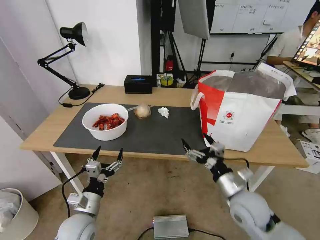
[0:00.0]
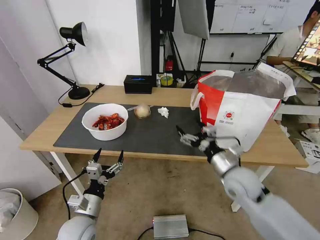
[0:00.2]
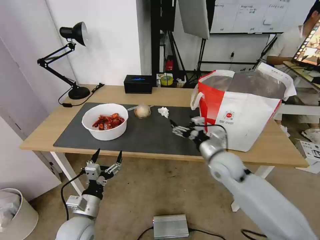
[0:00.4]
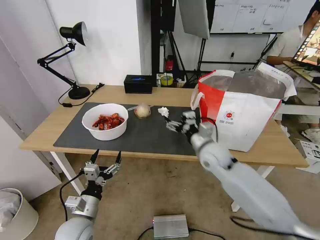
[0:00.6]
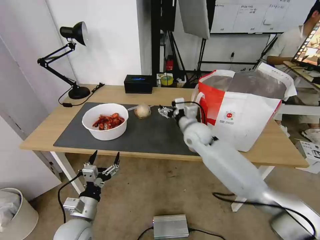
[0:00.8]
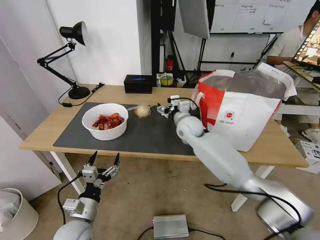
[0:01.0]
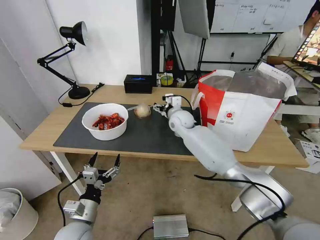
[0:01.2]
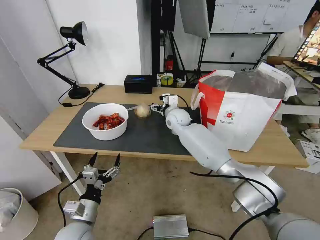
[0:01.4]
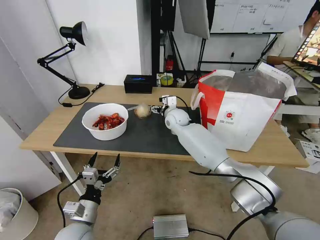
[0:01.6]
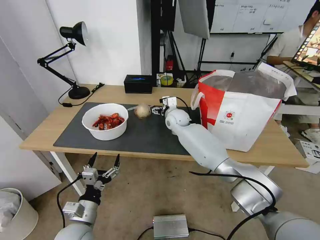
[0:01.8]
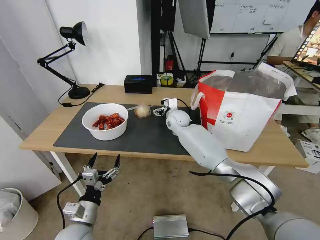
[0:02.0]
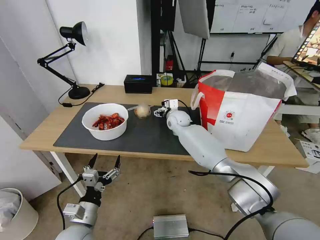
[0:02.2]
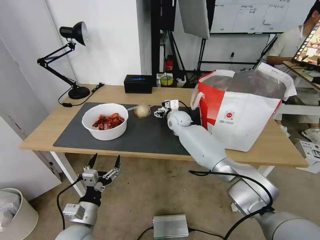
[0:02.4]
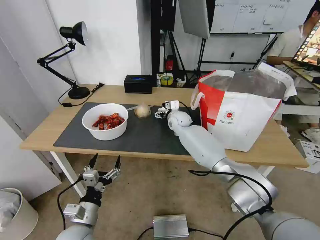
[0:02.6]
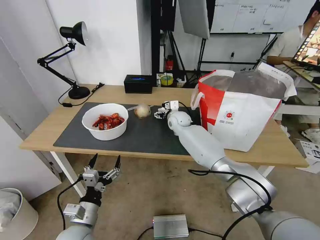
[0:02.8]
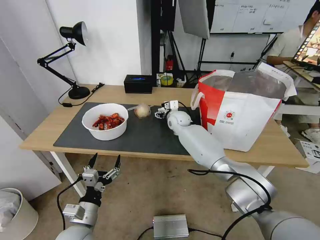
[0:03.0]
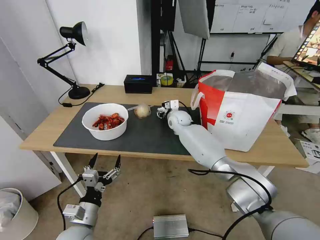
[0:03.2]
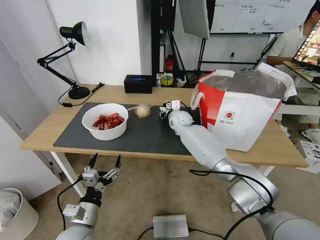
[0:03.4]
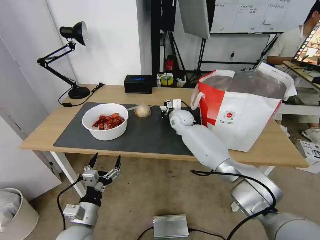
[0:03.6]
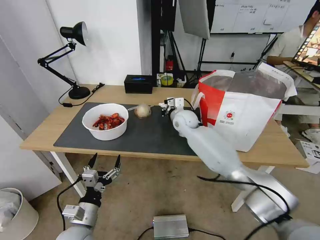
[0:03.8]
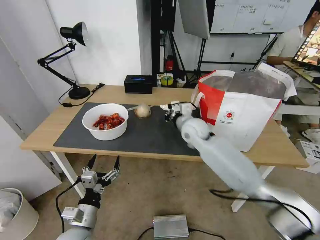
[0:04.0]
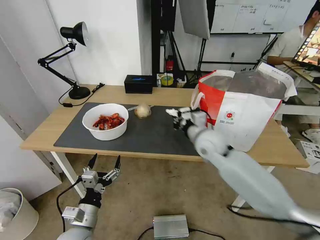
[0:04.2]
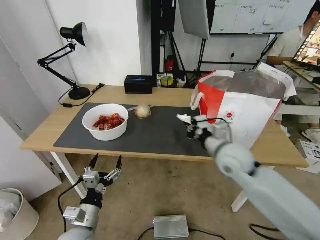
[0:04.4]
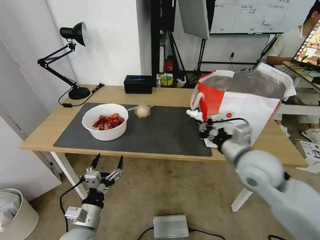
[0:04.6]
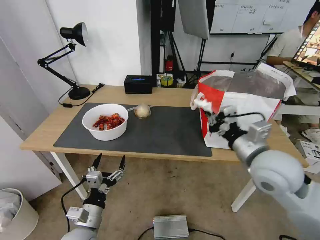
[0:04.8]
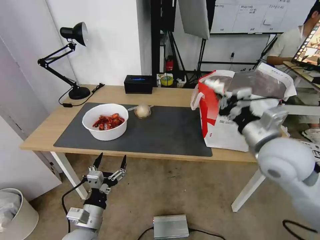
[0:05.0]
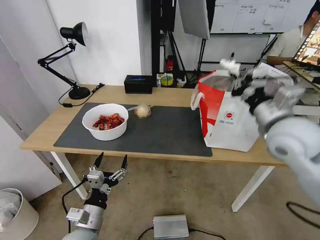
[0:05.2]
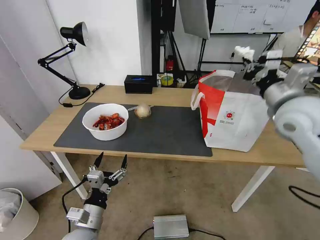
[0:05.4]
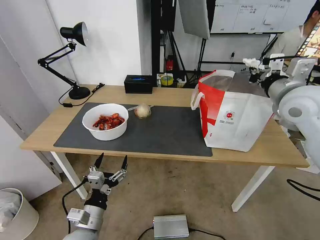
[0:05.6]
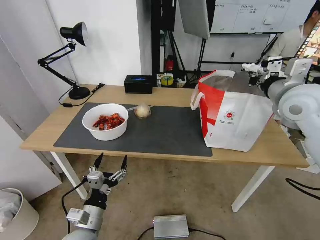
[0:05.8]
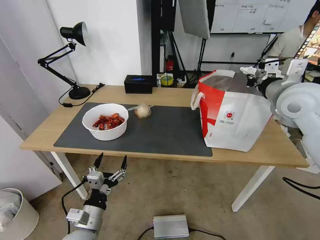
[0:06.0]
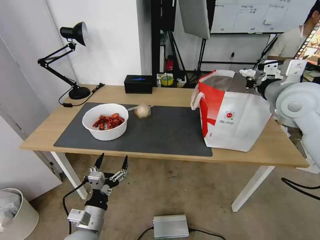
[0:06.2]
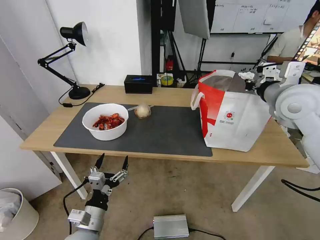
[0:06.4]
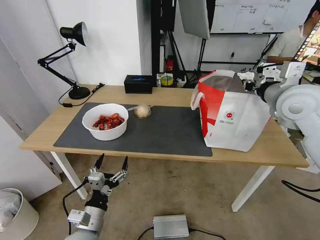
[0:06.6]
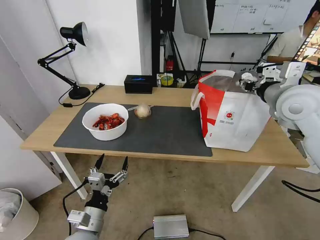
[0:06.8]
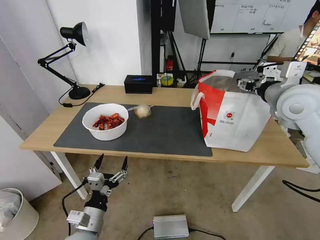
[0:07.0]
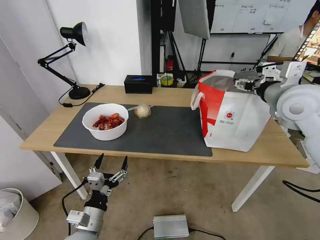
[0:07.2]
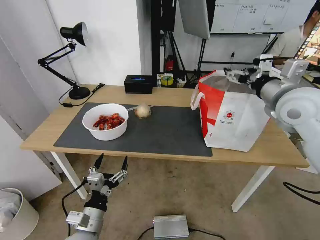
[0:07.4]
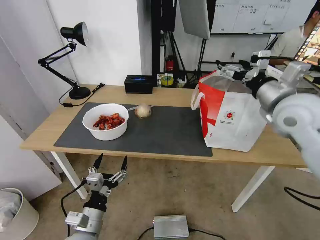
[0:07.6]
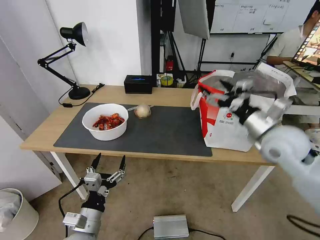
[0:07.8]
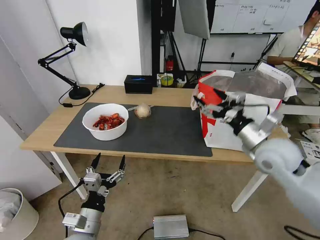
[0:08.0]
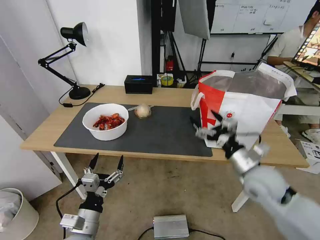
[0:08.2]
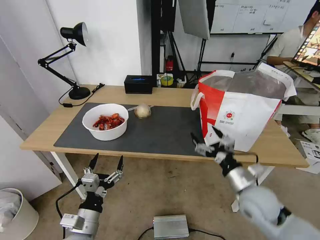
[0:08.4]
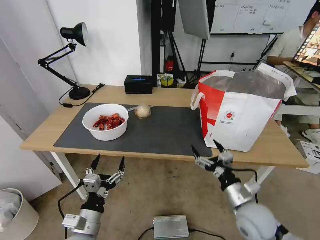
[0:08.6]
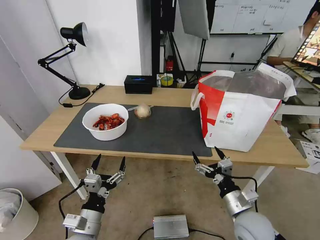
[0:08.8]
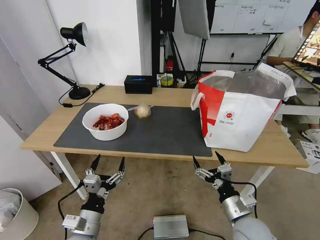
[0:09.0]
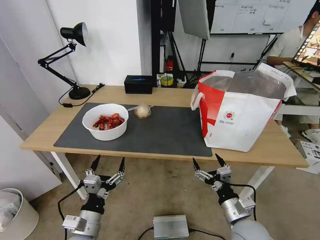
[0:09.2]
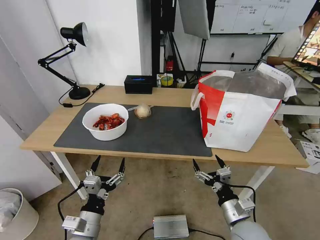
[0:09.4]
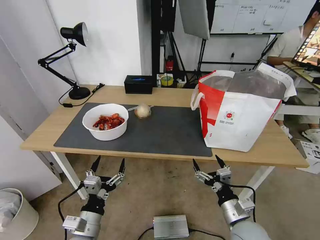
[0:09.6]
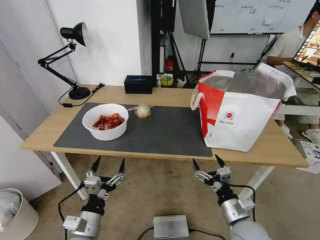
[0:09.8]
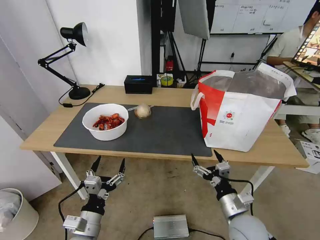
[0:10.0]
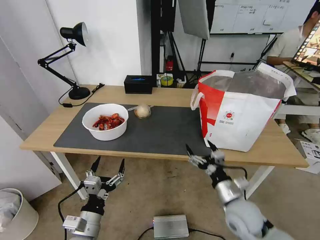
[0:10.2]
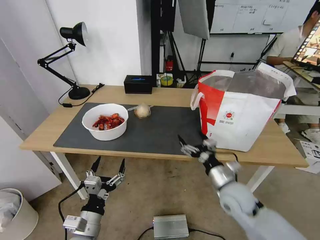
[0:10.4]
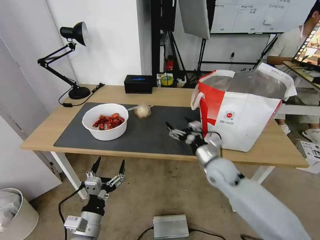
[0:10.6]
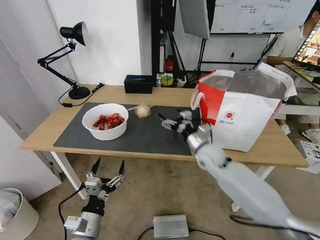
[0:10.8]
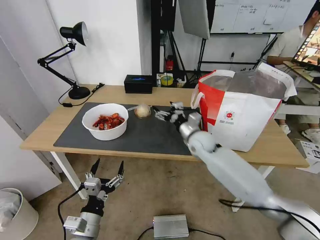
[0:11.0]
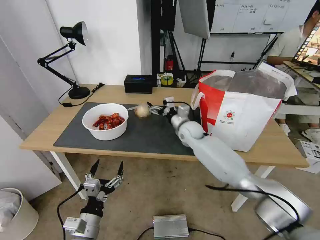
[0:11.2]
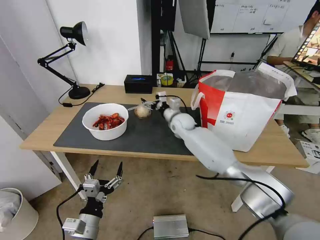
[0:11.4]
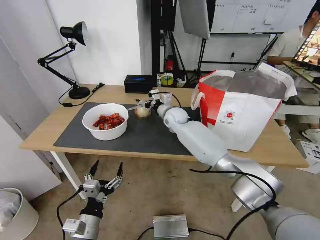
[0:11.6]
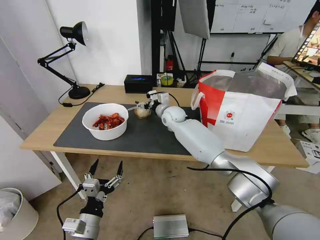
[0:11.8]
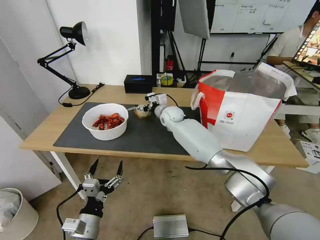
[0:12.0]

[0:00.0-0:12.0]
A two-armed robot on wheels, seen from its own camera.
Task of the whole recording: Pick up the trash from the table and place it into the takeout bag.
0:00.0 to 0:01.6: The right gripper travels forward and to the left by approximately 40 cm.
0:01.6 to 0:03.0: The grippers stay close to where they were, moving slightly.
0:03.0 to 0:04.4: The right gripper shifts about 30 cm backward and to the right, and closes its fingers.
0:04.4 to 0:06.0: The right gripper shifts approximately 20 cm upward, to the right and forward.
0:06.0 to 0:07.6: The right gripper opens.
0:07.6 to 0:09.0: The right gripper travels downward and backward by about 35 cm.
0:09.0 to 0:10.4: The right gripper shifts some 10 cm forward.
0:10.4 to 0:12.0: The right gripper travels forward and to the left by approximately 35 cm.

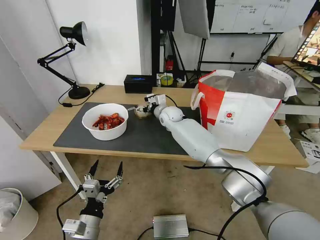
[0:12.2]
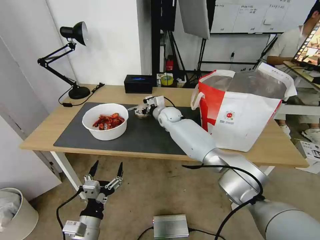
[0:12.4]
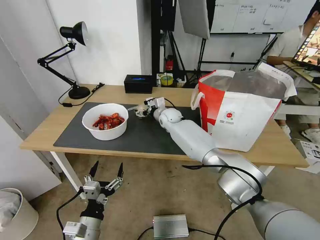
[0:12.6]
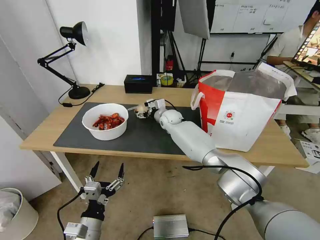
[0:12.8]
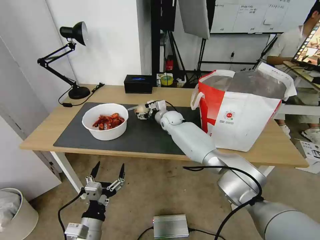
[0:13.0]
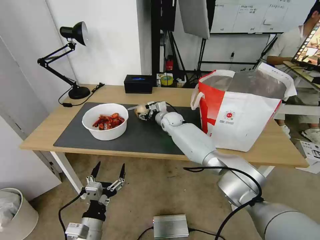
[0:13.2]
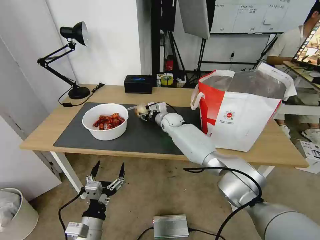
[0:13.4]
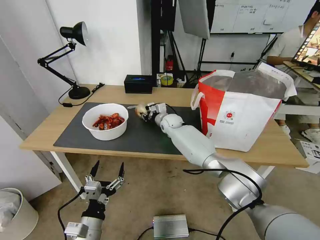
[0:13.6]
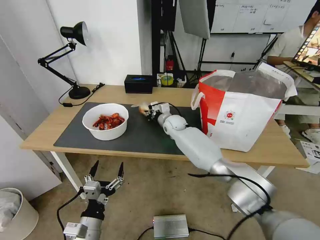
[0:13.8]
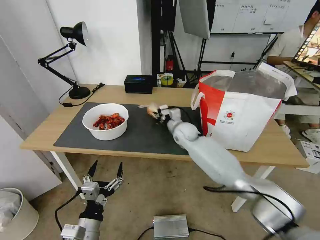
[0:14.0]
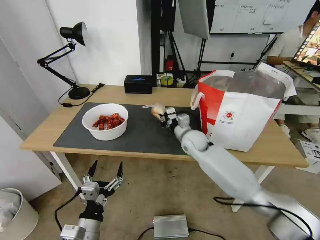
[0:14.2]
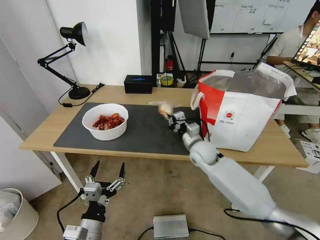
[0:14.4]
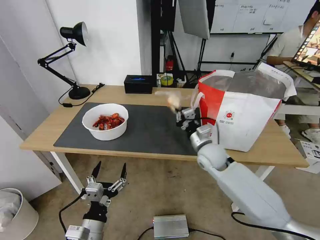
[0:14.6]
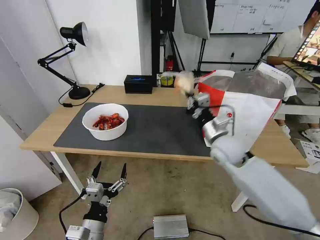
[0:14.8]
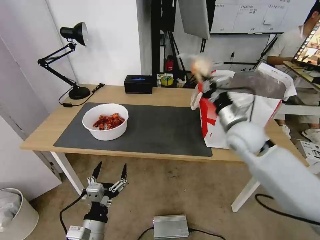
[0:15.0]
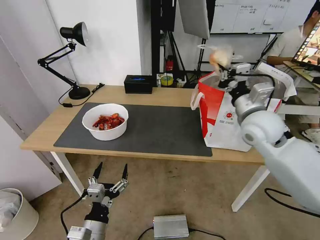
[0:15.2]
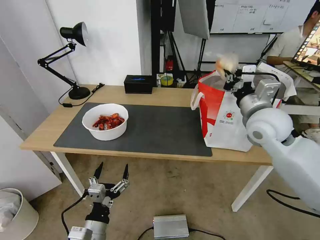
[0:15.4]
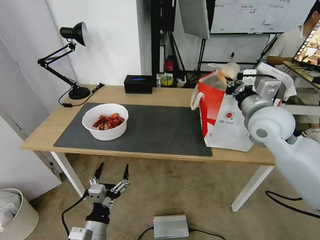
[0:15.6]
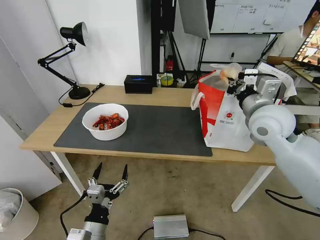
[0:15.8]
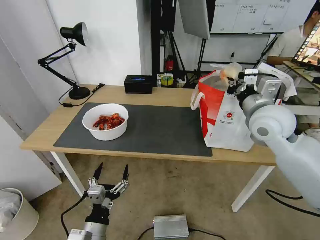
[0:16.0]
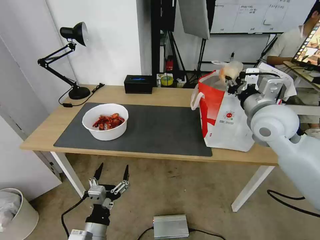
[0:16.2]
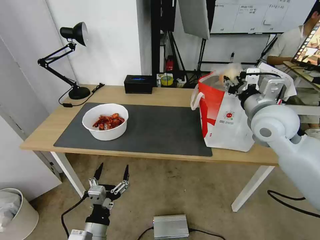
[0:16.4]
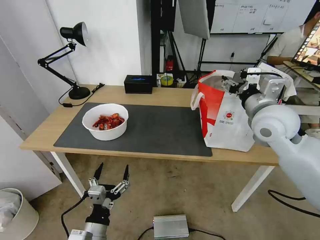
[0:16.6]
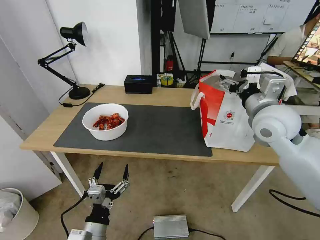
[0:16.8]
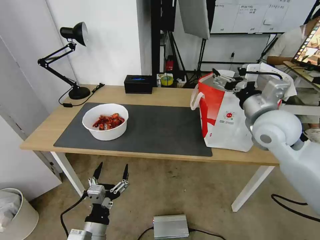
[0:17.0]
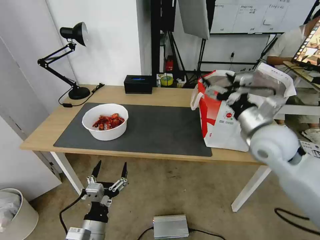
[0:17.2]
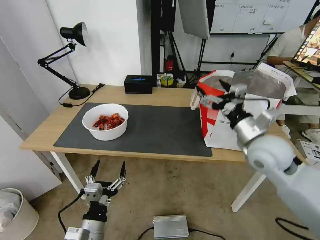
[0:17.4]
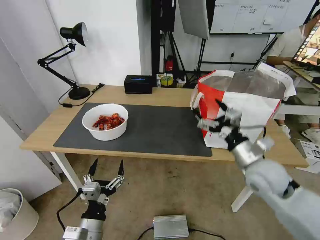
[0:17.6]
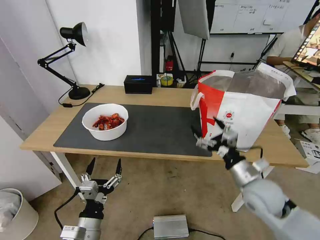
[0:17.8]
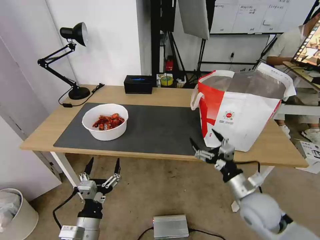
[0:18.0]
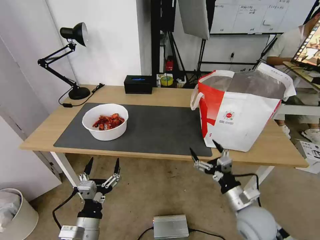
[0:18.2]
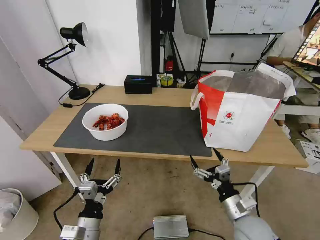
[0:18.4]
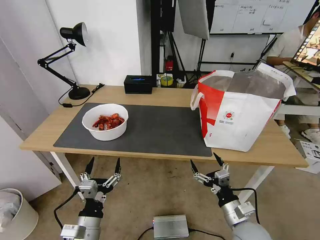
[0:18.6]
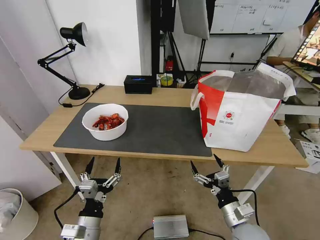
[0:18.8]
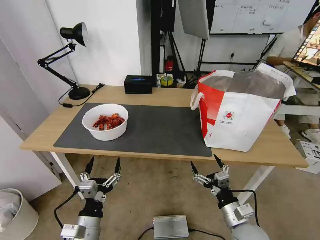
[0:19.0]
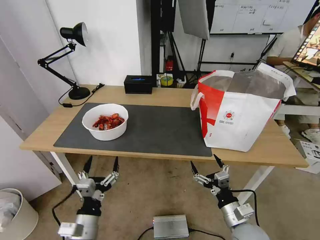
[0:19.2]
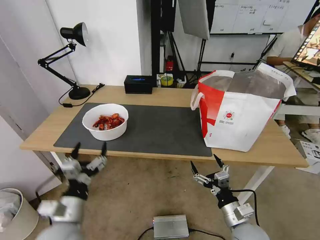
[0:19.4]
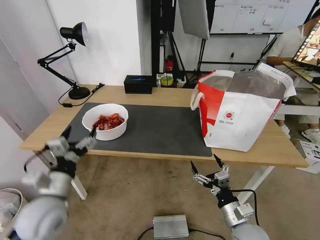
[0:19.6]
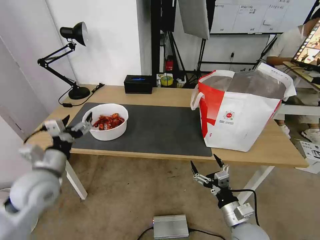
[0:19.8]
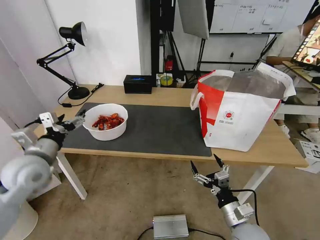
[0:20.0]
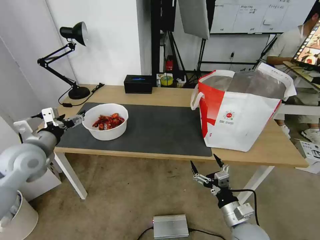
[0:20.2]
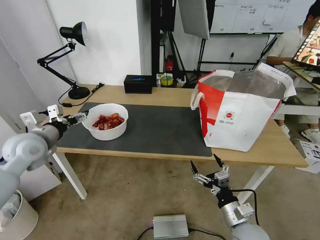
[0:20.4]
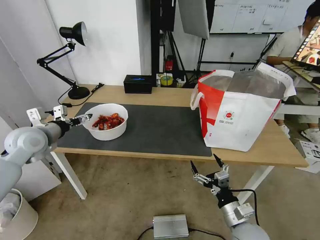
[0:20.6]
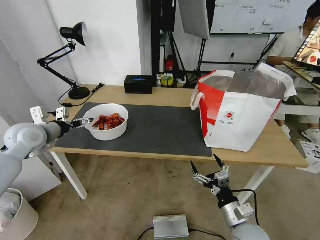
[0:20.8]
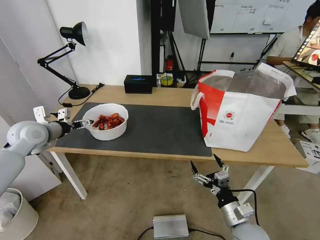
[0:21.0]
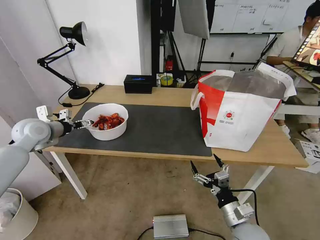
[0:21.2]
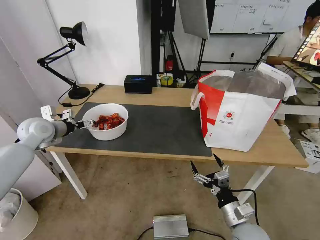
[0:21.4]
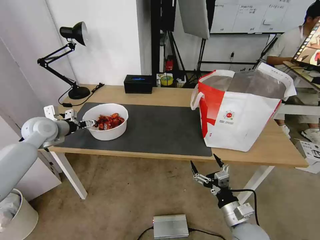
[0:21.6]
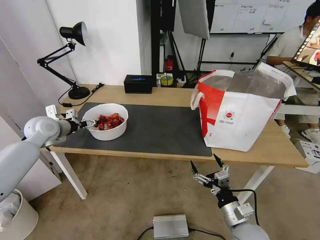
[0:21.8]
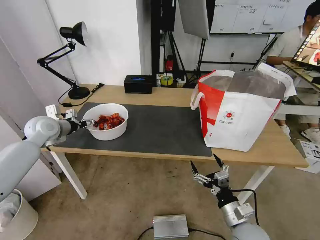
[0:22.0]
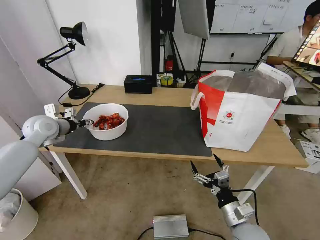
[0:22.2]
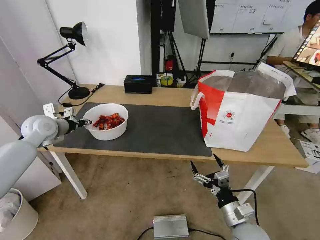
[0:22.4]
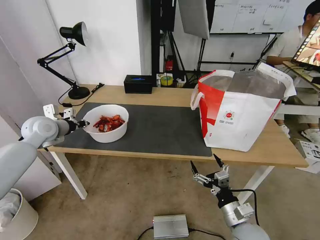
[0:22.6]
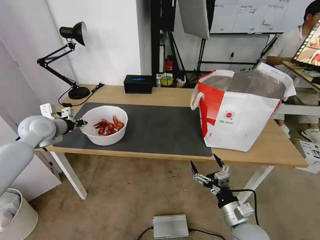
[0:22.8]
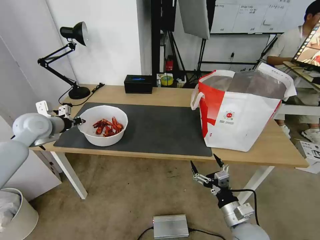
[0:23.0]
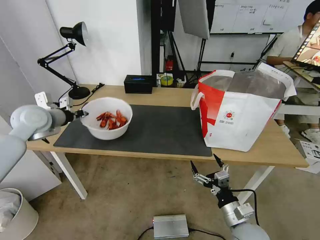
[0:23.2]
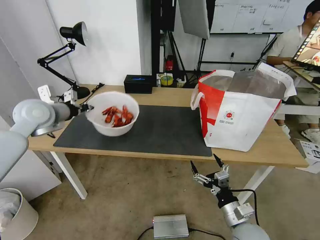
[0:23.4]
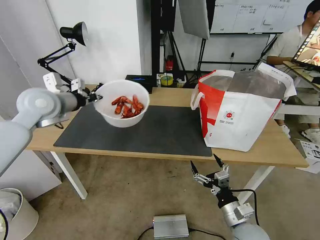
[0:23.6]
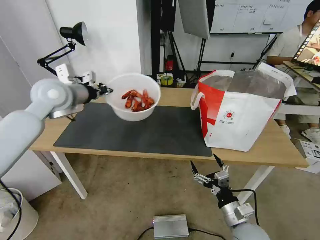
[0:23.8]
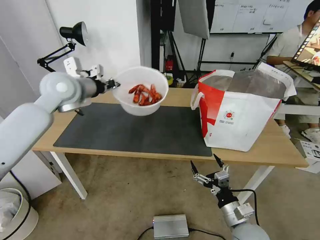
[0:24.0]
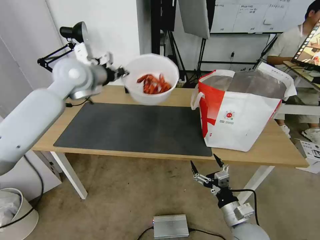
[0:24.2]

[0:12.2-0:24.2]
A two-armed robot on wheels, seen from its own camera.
Task of the whole recording: Pick up the trash from the table and place it into the takeout bag.
0:12.2 to 0:13.8: The right gripper closes its fingers.
0:13.8 to 0:15.2: The right gripper goes about 30 cm to the right, backward and upward.
0:15.2 to 0:16.6: The right gripper opens up.
0:16.6 to 0:18.2: The right gripper moves downward and backward, roughly 30 cm.
0:18.2 to 0:19.8: The left gripper shifts roughly 20 cm upward, forward and to the left.
0:19.8 to 0:21.2: The left gripper is displaced forward and to the left by approximately 20 cm.
0:21.2 to 0:22.6: The left gripper closes its fingers.
0:22.6 to 0:24.2: The left gripper shifts roughly 25 cm upward and to the right.
